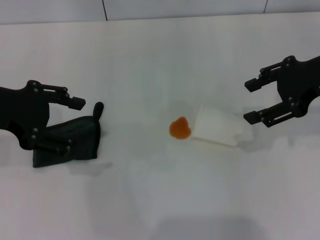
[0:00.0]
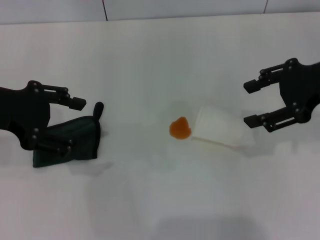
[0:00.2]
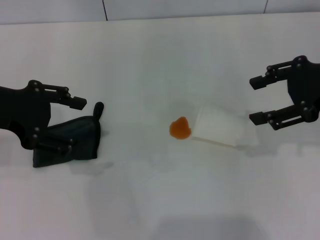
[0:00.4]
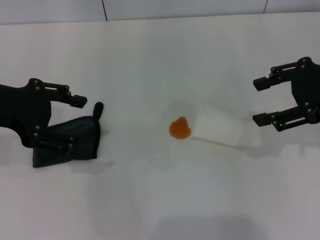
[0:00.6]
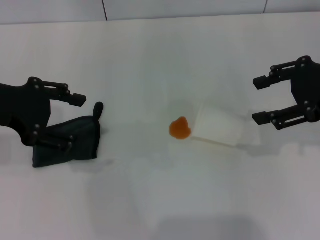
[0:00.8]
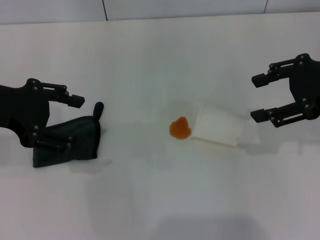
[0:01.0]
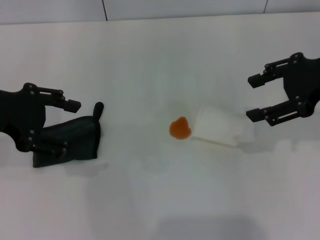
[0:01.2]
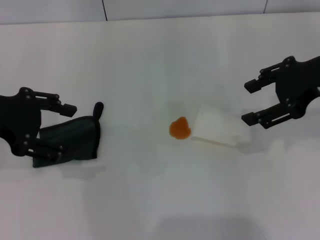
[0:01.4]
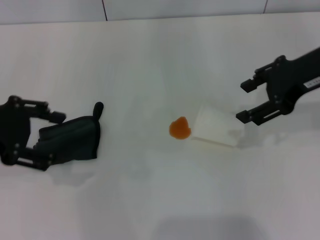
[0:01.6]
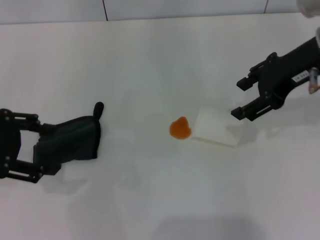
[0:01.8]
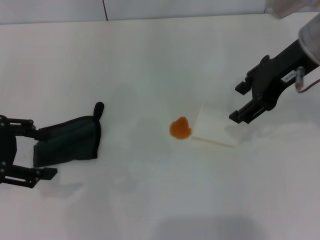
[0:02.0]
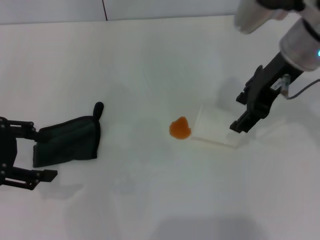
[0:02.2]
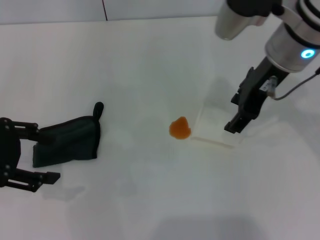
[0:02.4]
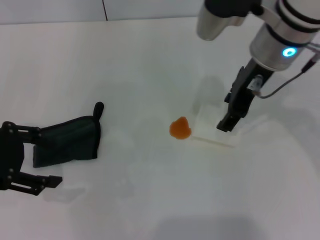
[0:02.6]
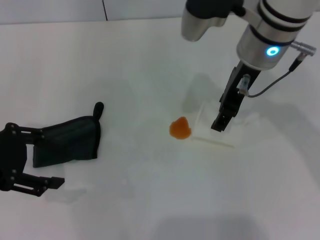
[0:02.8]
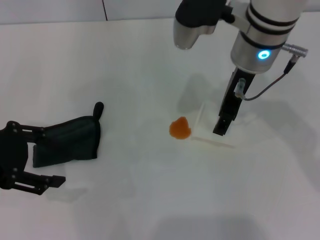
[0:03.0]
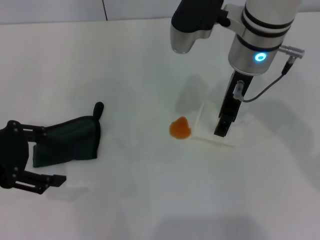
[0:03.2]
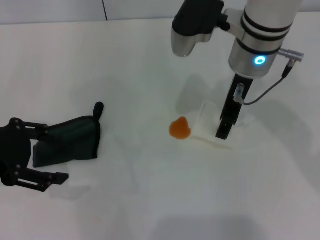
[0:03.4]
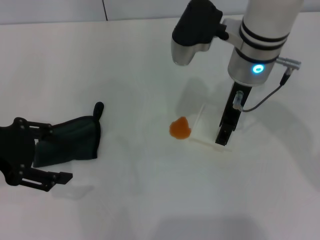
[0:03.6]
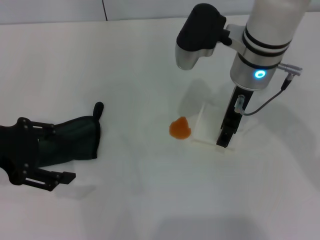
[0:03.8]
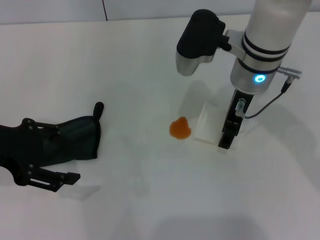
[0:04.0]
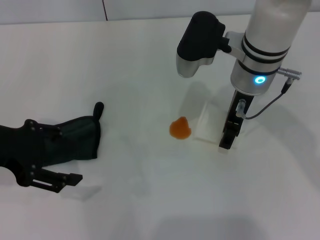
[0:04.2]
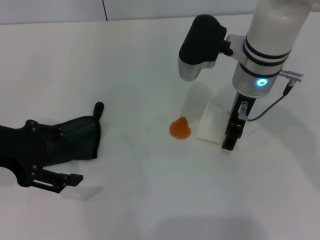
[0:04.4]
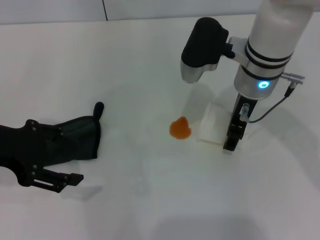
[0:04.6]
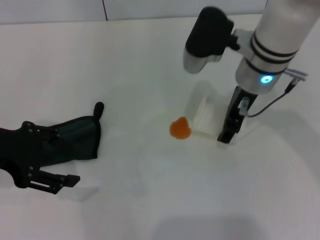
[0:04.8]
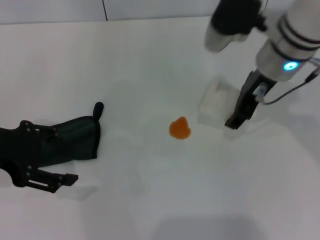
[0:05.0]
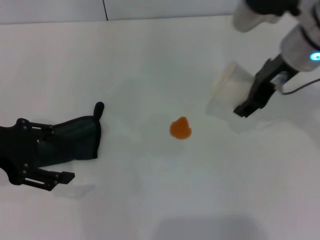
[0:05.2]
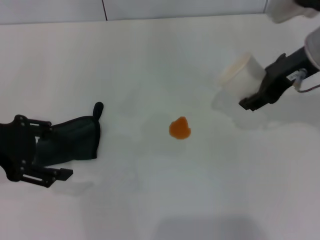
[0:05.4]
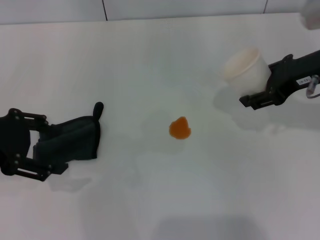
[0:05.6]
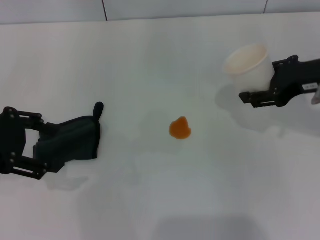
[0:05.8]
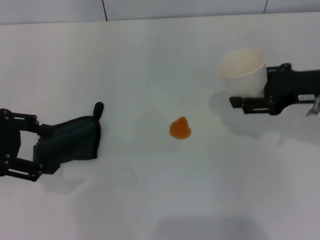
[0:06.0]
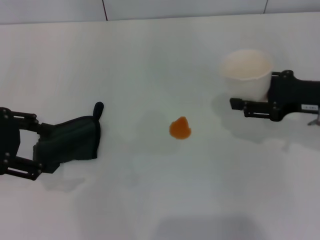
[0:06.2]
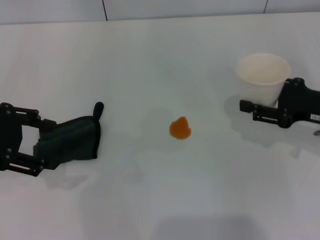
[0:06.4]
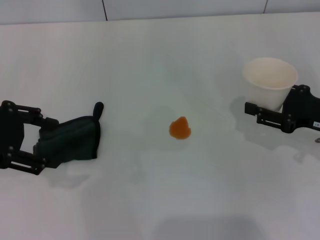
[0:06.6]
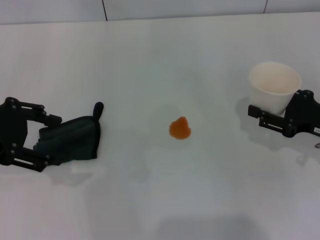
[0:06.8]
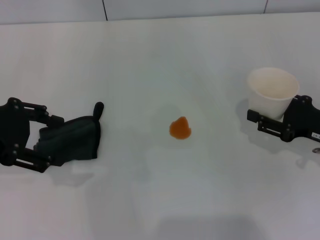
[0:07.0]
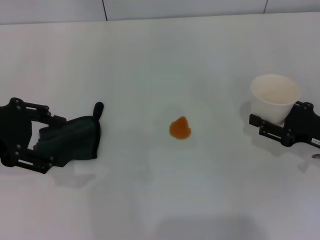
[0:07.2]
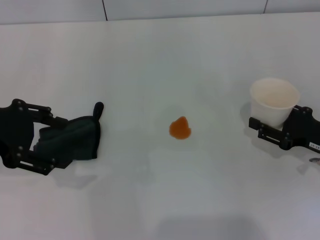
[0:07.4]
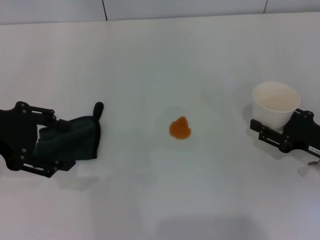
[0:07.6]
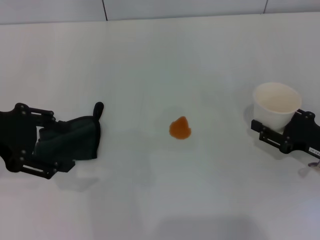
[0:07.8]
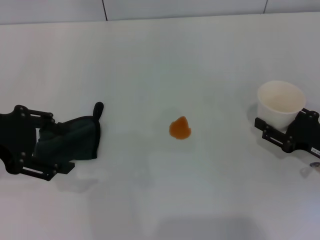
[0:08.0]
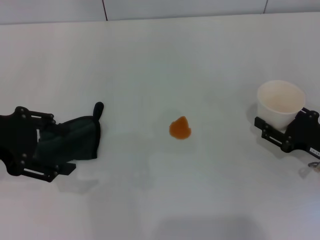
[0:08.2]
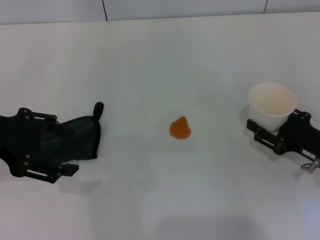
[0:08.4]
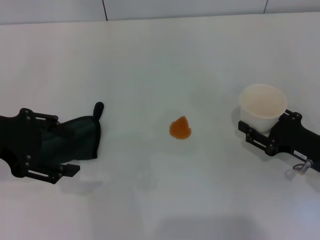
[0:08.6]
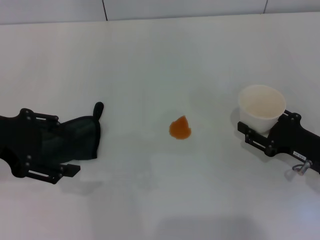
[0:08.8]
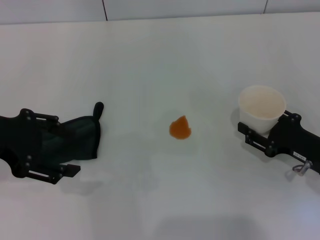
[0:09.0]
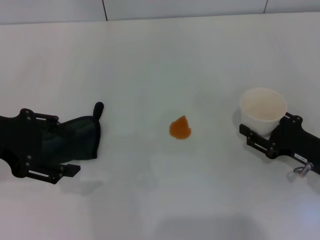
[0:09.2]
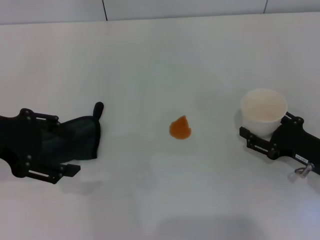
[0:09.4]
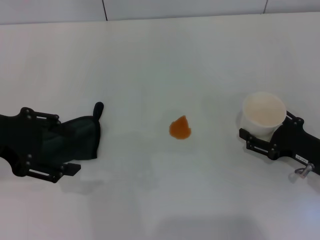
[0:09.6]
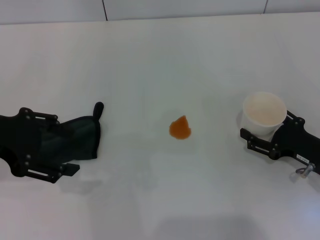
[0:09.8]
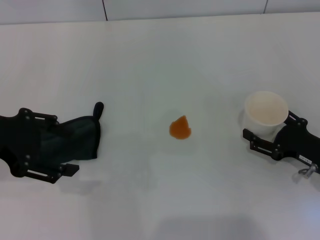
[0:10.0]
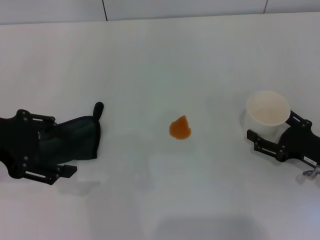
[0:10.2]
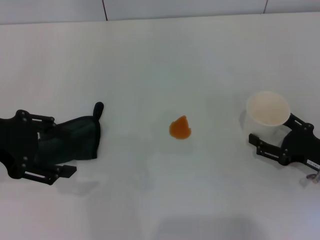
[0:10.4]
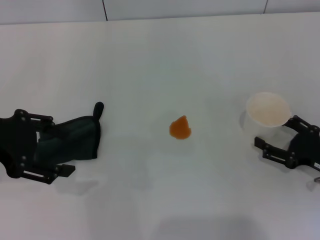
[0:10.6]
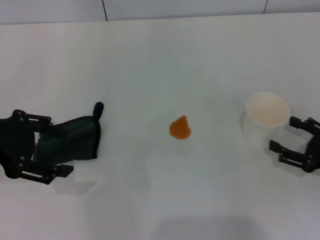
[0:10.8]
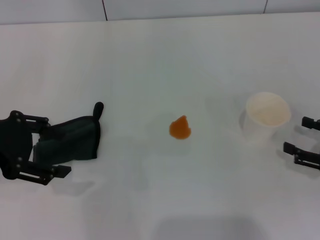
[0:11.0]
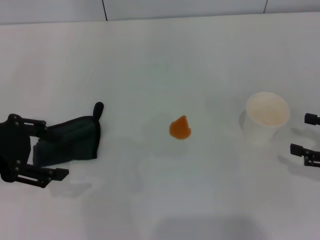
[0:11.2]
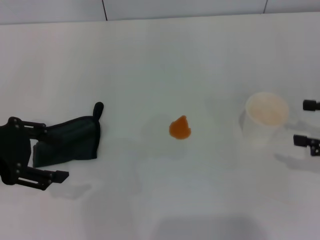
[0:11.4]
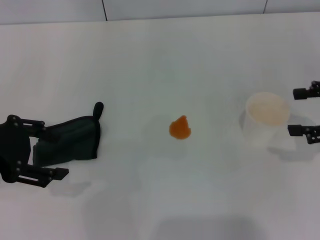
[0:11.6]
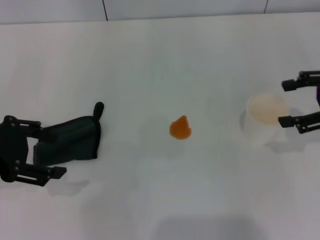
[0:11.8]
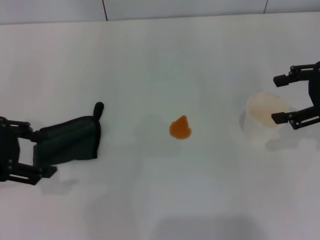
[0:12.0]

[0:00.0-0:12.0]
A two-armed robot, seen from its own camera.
Step, 0:00.0 to 0:04.4: Grasp the paper cup with the right gripper.
Step, 0:04.6 to 0:09.8: Stand the paper cup upright with the right gripper.
0:00.0 to 0:01.6: The grippers make only small movements.
0:01.6 to 0:03.0: The right gripper shifts some 15 cm to the left and forward.
0:03.0 to 0:04.4: The grippers move only a little.
0:04.4 to 0:06.0: The right gripper moves to the right, approximately 15 cm, and closes.
0:06.0 to 0:07.6: The right gripper travels downward and backward by roughly 15 cm.
0:07.6 to 0:09.0: The grippers move only a little.
0:09.0 to 0:10.4: The right gripper opens.
0:10.4 to 0:12.0: The right gripper moves upward and forward, approximately 20 cm.

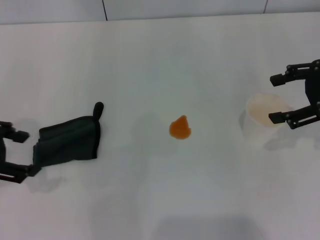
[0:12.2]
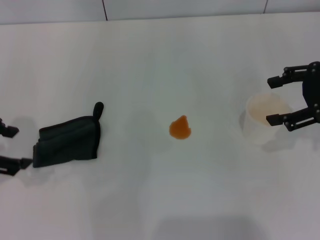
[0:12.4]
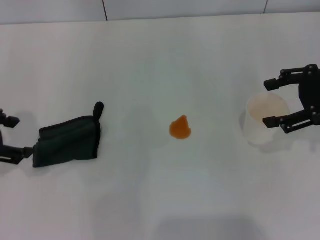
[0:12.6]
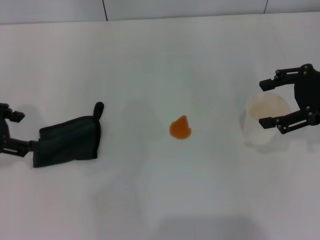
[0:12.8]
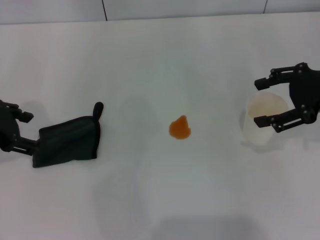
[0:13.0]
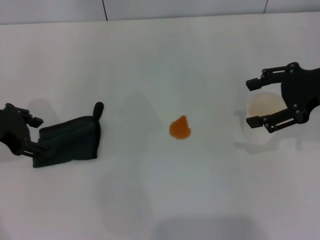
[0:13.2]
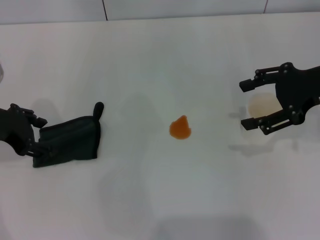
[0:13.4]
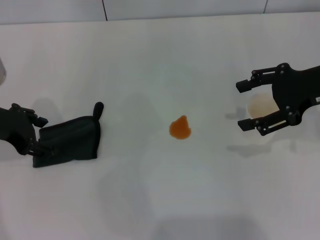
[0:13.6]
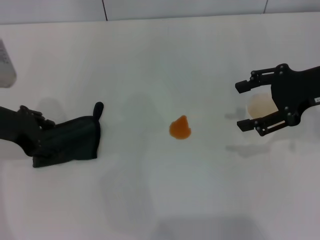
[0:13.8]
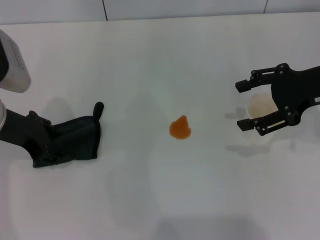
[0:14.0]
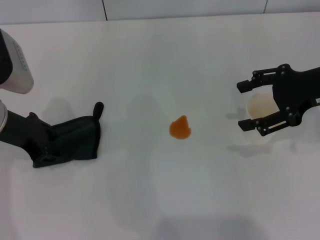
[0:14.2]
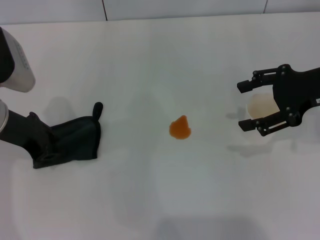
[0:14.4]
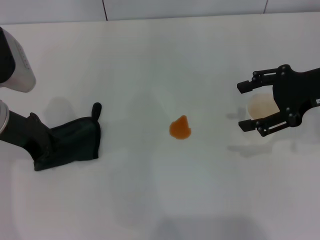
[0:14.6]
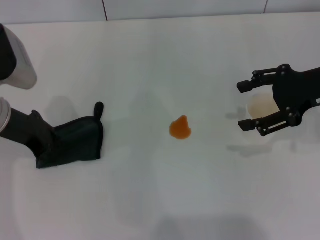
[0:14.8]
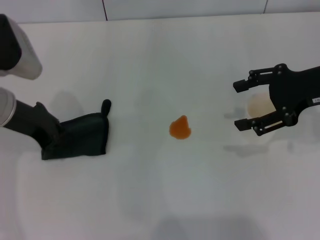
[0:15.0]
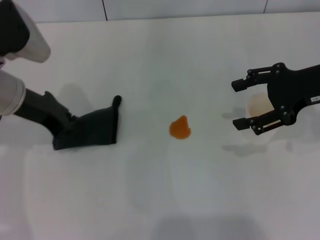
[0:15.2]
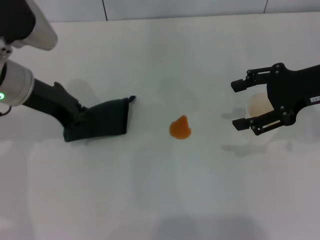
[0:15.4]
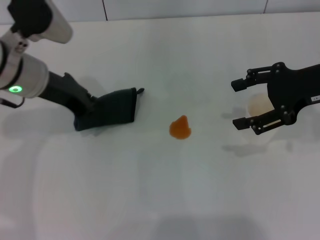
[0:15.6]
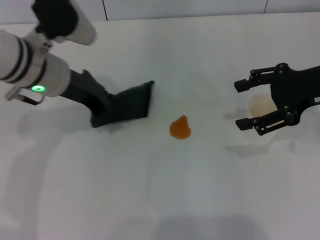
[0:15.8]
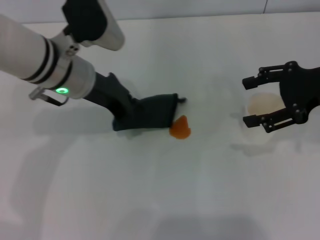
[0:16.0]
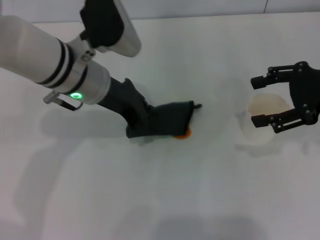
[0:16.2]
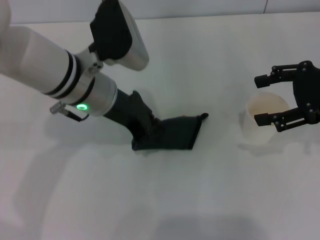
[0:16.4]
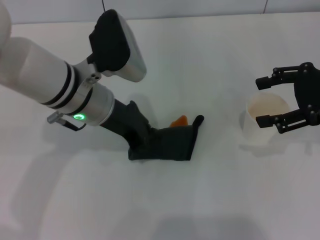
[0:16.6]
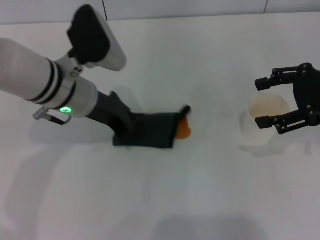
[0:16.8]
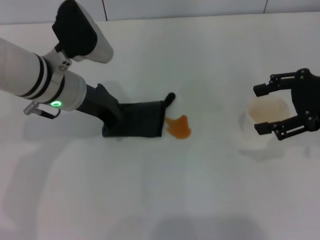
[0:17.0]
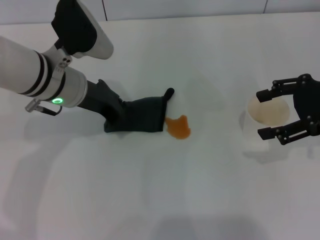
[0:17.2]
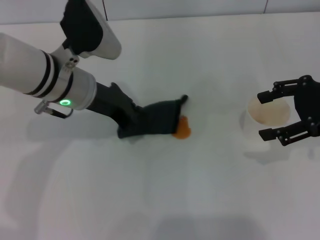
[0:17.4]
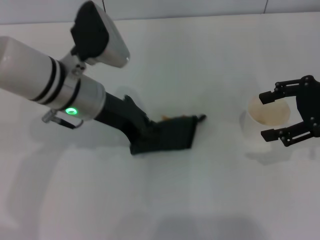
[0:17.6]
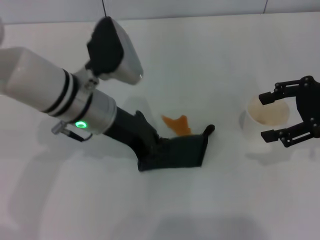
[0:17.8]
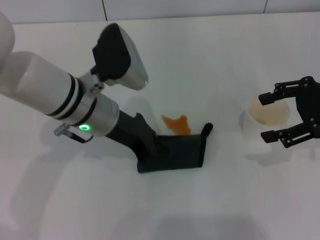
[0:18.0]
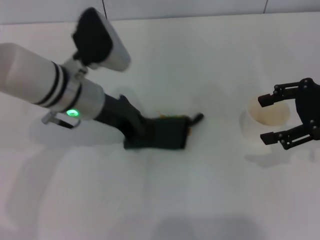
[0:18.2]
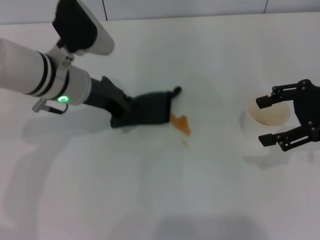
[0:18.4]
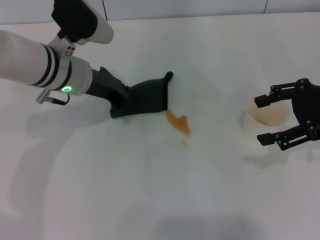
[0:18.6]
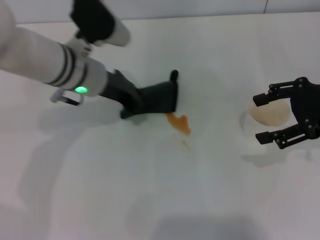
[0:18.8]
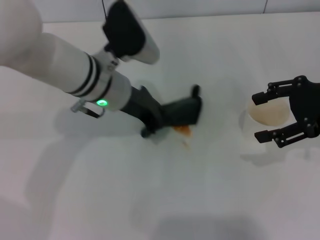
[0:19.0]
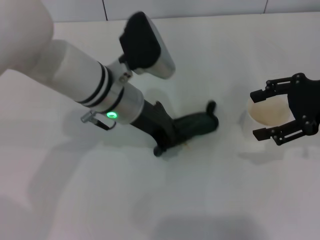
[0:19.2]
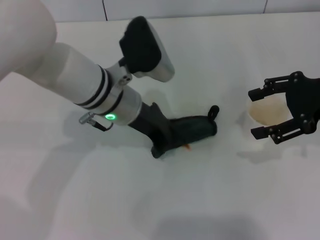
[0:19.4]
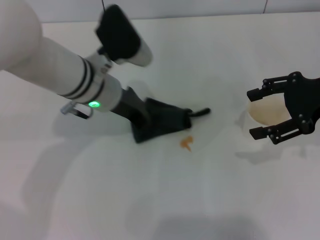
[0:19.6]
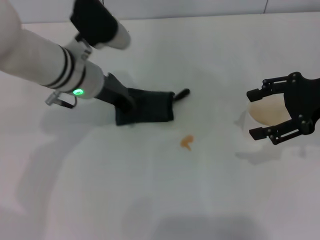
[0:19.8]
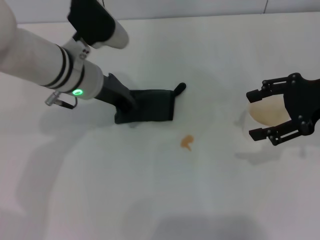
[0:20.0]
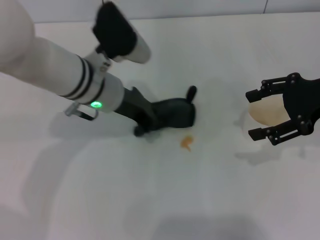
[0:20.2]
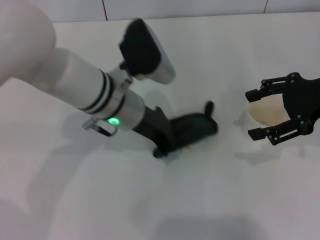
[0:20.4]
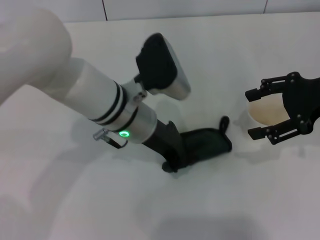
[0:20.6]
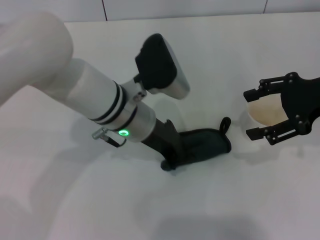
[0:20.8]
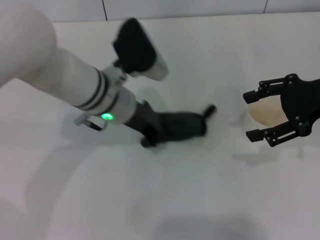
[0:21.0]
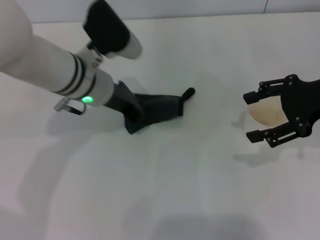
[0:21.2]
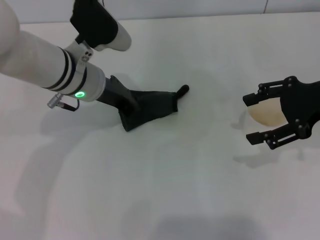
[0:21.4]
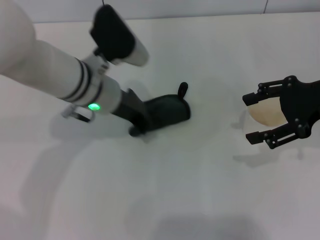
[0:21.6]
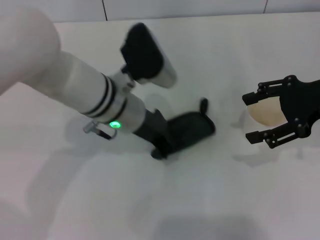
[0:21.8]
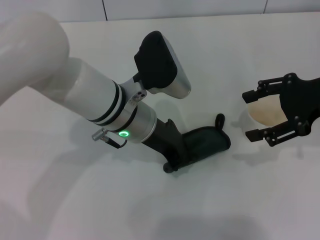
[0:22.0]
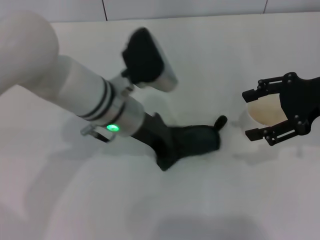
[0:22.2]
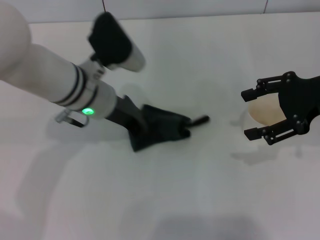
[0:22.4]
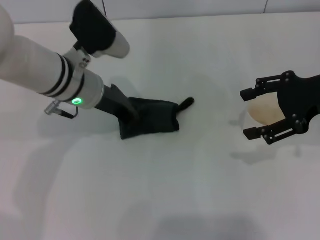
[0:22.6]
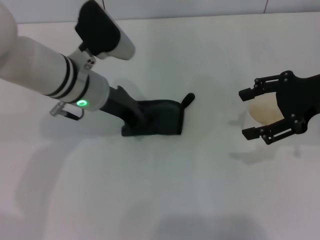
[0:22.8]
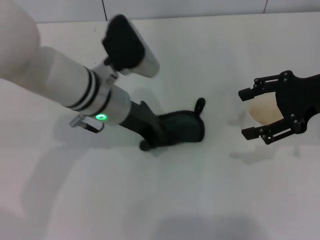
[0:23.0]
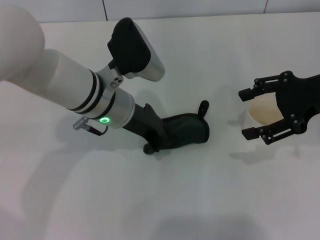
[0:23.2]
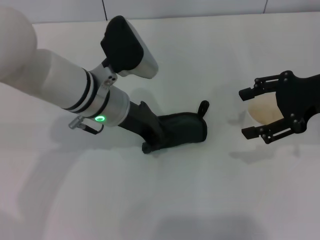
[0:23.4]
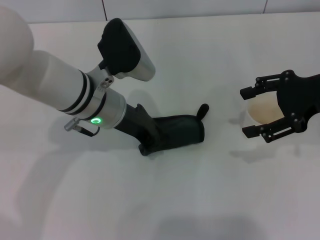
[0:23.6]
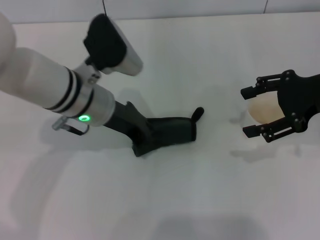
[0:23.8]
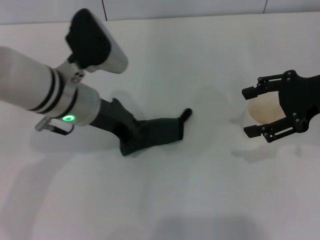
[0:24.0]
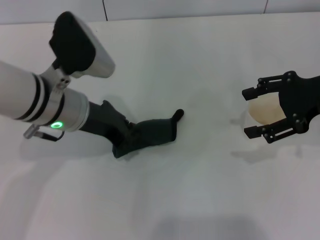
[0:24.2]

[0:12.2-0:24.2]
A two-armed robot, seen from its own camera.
Step, 0:12.2 to 0:14.4: Grasp the rag with the left gripper.
Step, 0:14.6 to 0:23.8: Wipe the stains off the table with the left gripper.
0:12.2 to 0:13.8: The left gripper moves forward and downward, approximately 10 cm.
0:13.8 to 0:15.2: The left gripper closes up.
0:15.2 to 0:16.6: The left gripper travels to the right by some 10 cm.
0:16.6 to 0:18.2: There are only small adjustments of the grippers.
0:18.2 to 0:19.8: The grippers stay close to where they were, moving slightly.
0:22.6 to 0:24.2: The left gripper changes place by about 5 cm.
